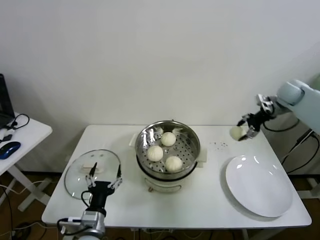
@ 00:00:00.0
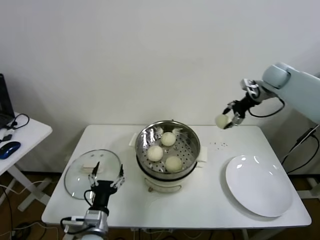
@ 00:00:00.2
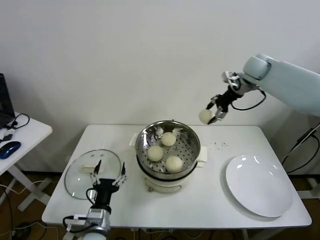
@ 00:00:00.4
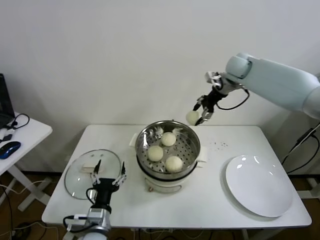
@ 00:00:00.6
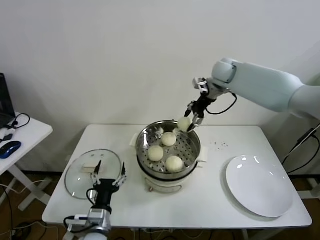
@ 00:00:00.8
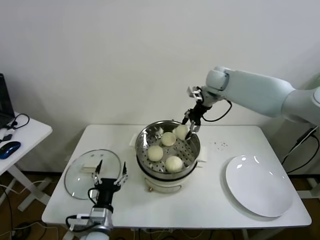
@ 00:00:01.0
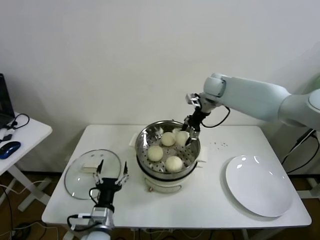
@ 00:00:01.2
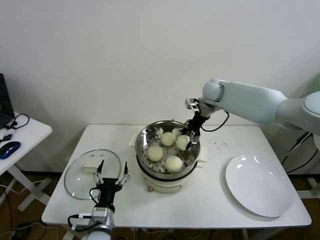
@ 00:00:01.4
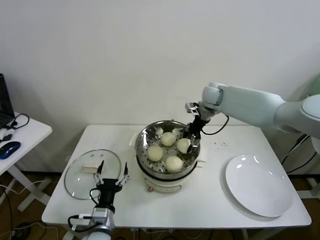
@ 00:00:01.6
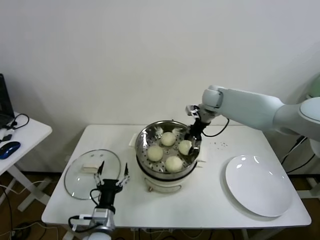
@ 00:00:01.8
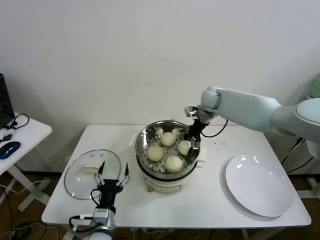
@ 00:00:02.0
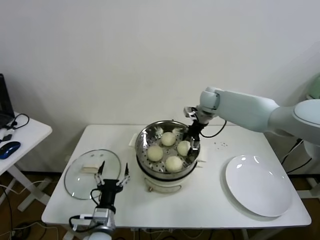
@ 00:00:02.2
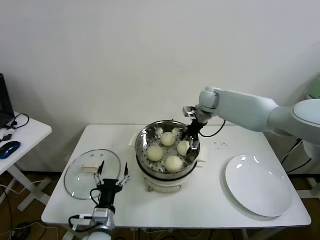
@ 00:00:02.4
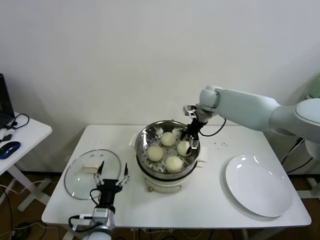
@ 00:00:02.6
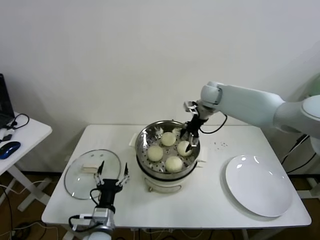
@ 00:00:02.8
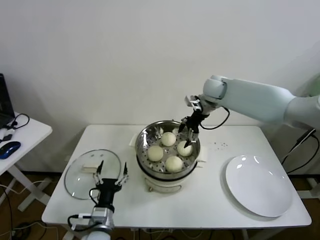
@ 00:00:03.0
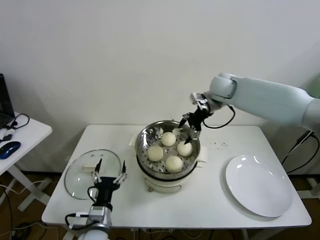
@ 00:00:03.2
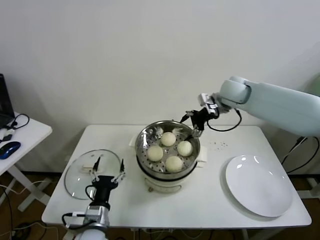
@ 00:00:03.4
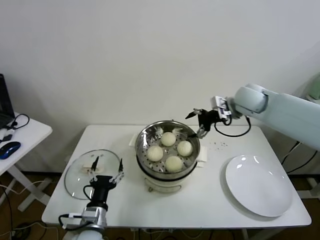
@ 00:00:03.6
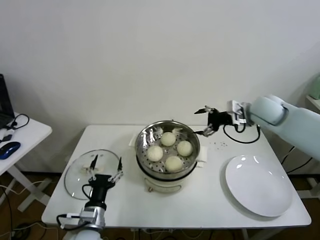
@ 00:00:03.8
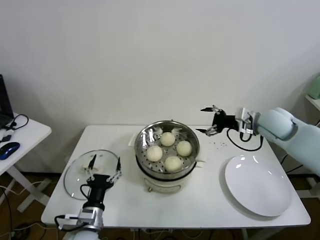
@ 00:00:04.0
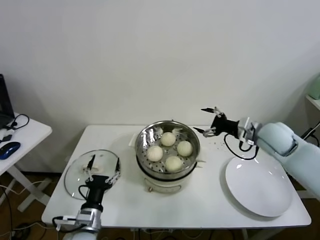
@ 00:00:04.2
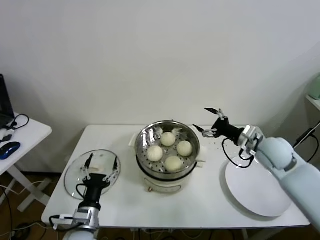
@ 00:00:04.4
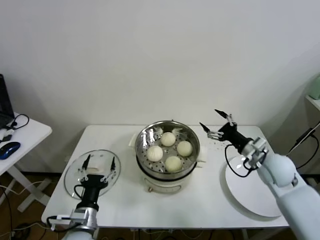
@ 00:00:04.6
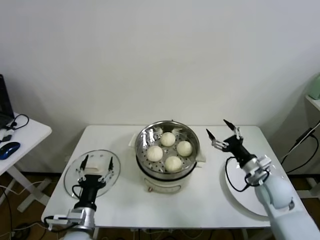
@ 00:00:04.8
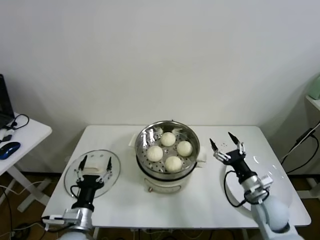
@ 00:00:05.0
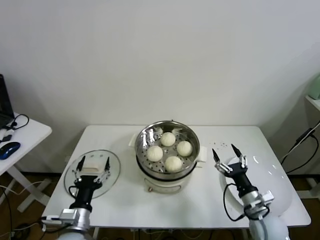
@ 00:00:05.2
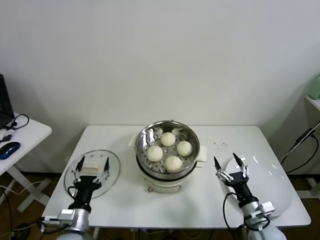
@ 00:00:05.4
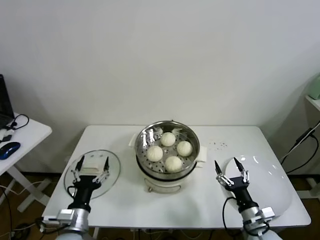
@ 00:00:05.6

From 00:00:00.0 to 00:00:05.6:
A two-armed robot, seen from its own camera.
Task of the whole recording: take steamed baozi put them in steamer.
Step, from 00:00:00.0 to 00:00:02.6: Place the baozi on the steamer with right gripper.
From 00:00:00.0 to 00:00:01.4: The right gripper moves to the left, some 25 cm.
From 00:00:01.4 to 00:00:02.8: The right gripper opens.
From 00:00:02.8 to 00:00:04.2: The right gripper is displaced backward and to the right by approximately 25 cm.
From 00:00:04.2 to 00:00:05.6: The right gripper moves downward and backward, about 35 cm.
